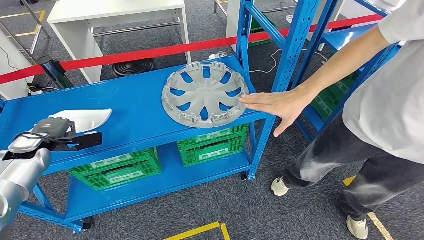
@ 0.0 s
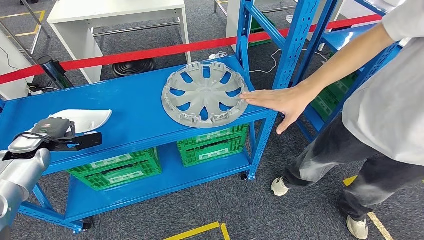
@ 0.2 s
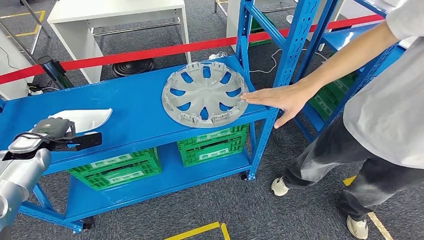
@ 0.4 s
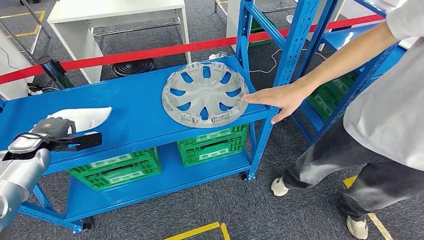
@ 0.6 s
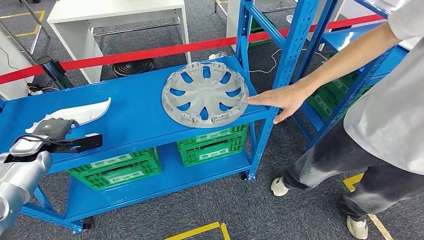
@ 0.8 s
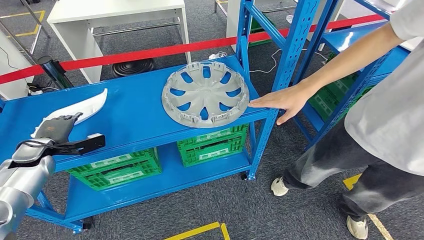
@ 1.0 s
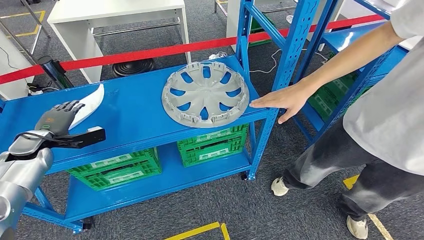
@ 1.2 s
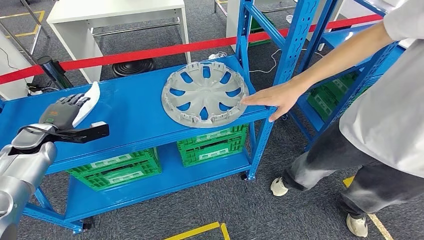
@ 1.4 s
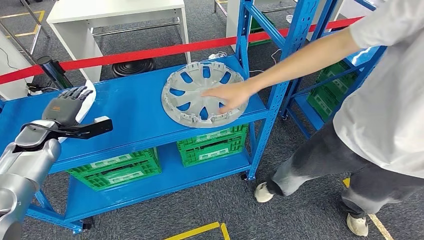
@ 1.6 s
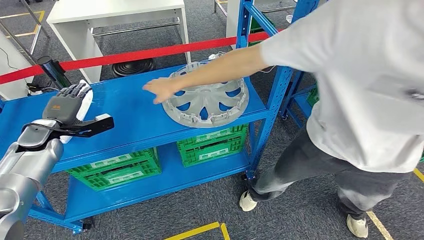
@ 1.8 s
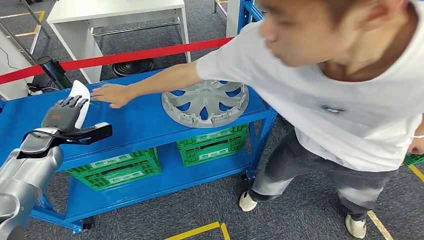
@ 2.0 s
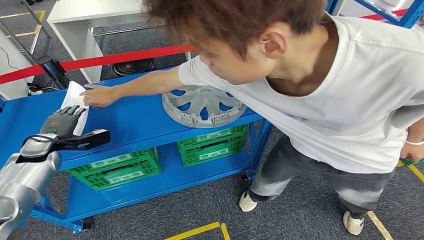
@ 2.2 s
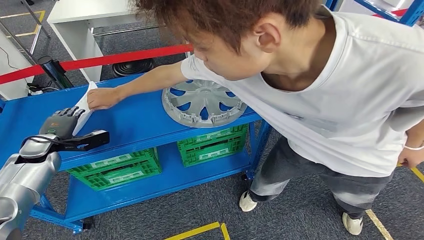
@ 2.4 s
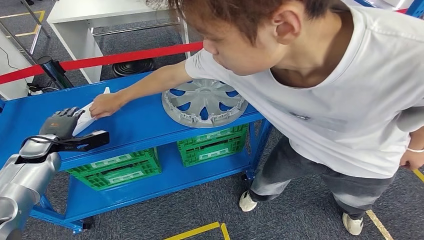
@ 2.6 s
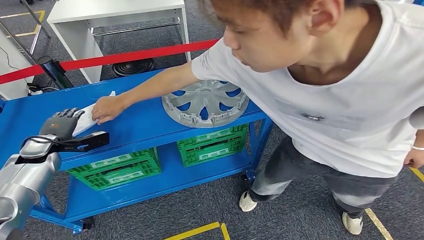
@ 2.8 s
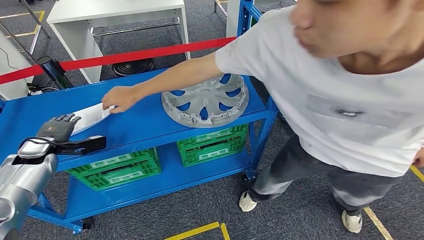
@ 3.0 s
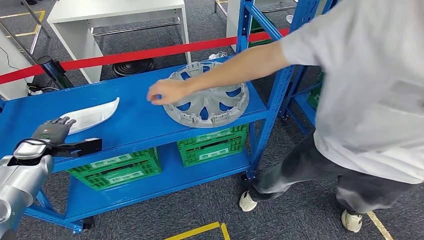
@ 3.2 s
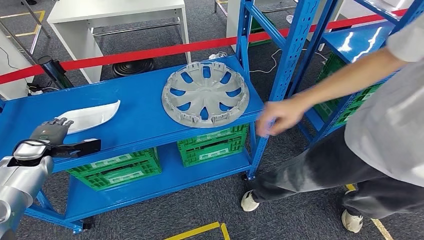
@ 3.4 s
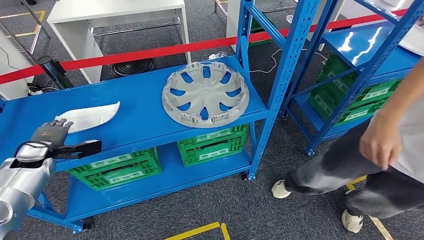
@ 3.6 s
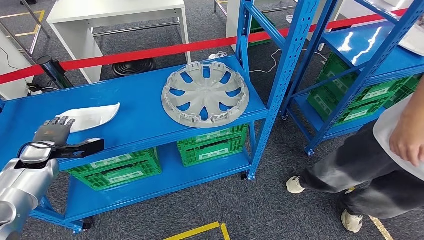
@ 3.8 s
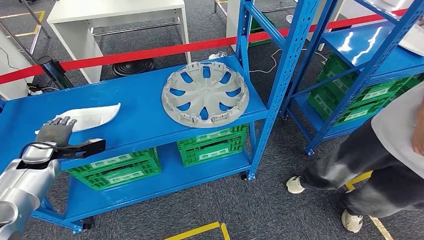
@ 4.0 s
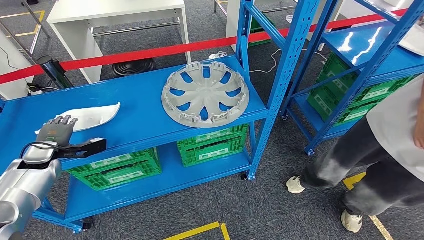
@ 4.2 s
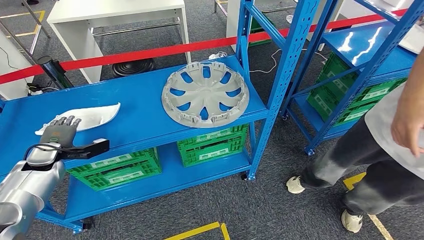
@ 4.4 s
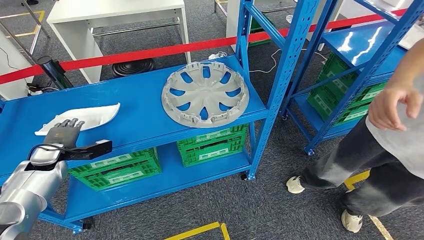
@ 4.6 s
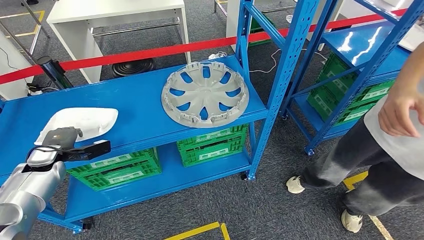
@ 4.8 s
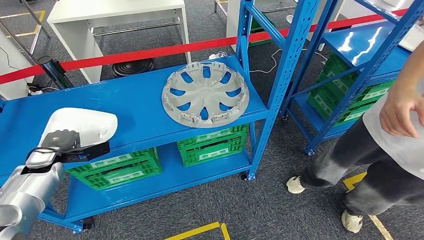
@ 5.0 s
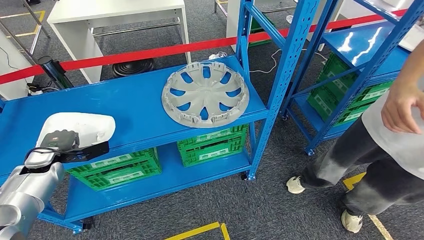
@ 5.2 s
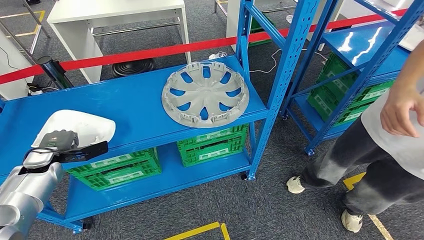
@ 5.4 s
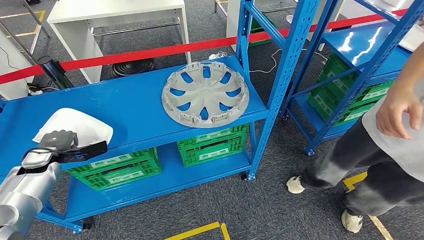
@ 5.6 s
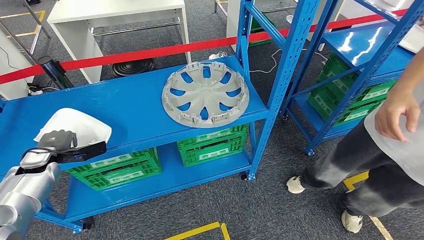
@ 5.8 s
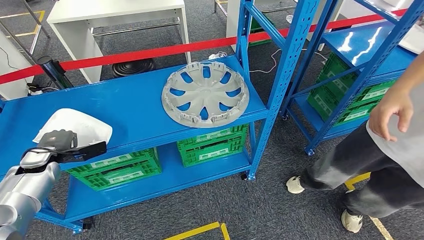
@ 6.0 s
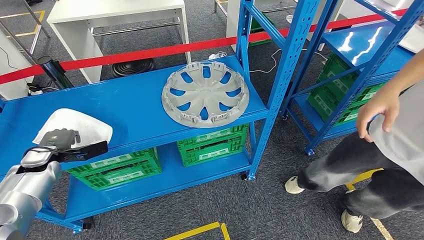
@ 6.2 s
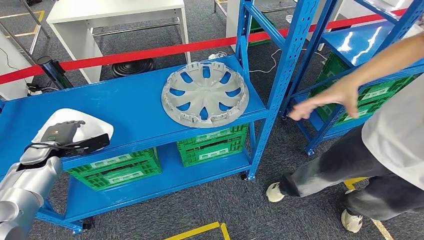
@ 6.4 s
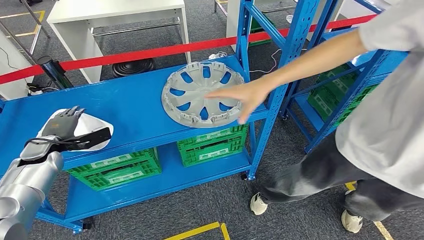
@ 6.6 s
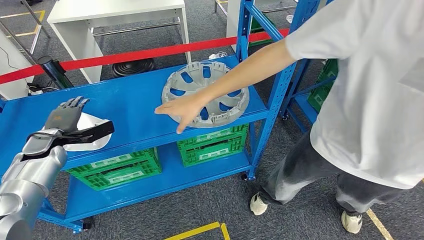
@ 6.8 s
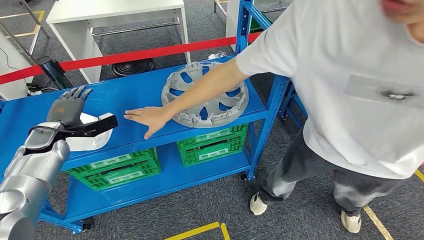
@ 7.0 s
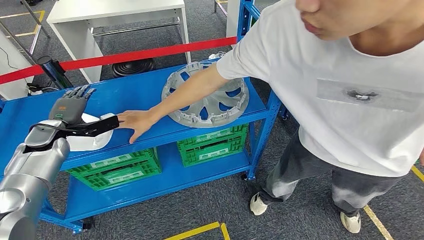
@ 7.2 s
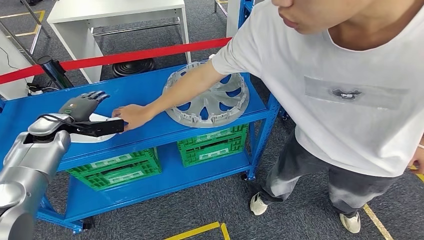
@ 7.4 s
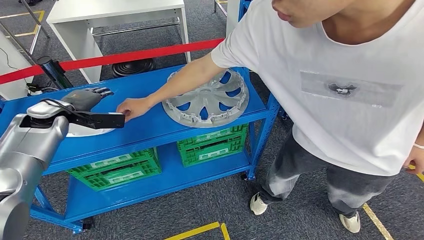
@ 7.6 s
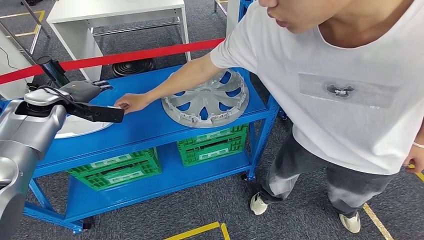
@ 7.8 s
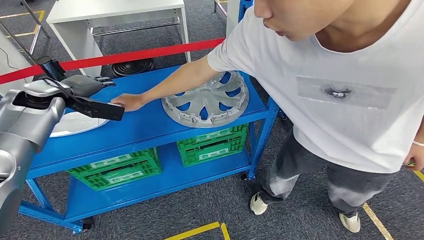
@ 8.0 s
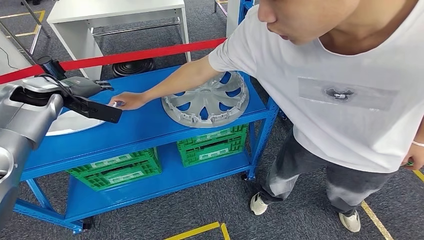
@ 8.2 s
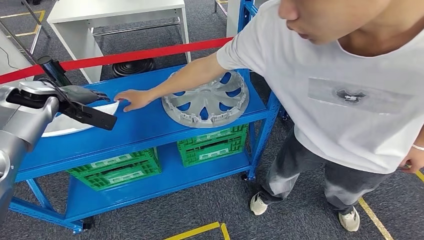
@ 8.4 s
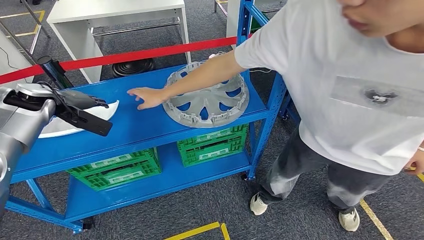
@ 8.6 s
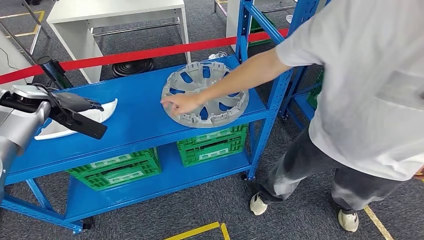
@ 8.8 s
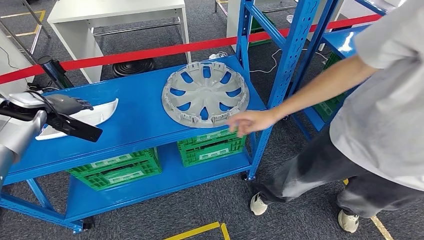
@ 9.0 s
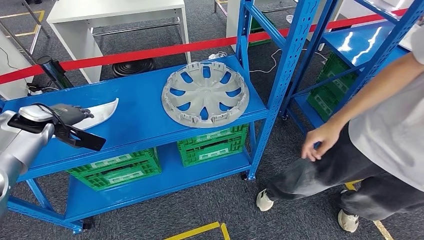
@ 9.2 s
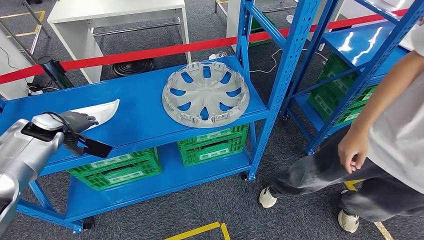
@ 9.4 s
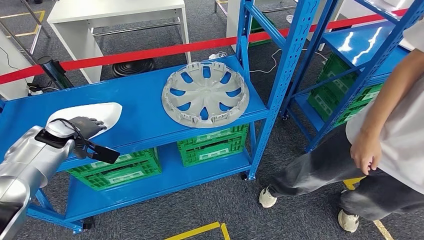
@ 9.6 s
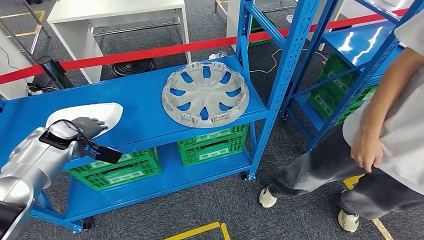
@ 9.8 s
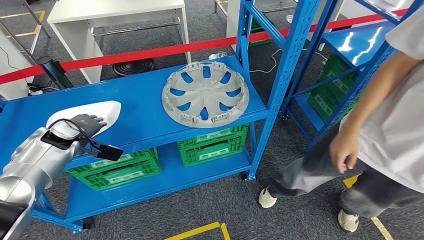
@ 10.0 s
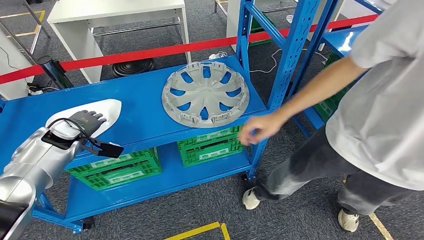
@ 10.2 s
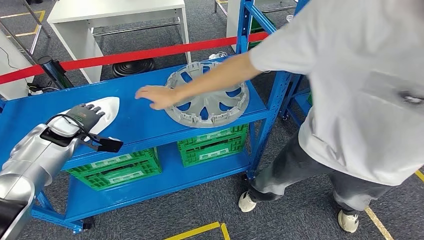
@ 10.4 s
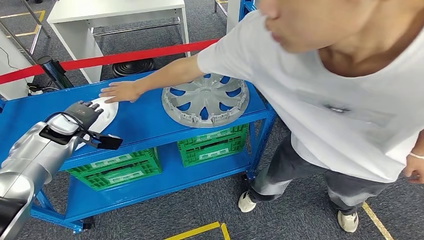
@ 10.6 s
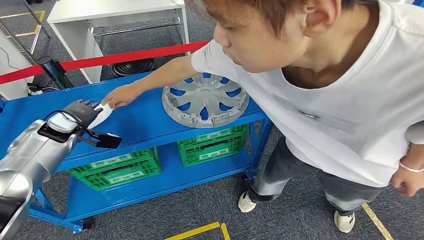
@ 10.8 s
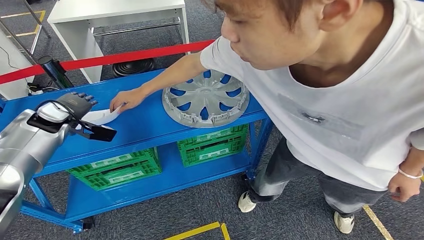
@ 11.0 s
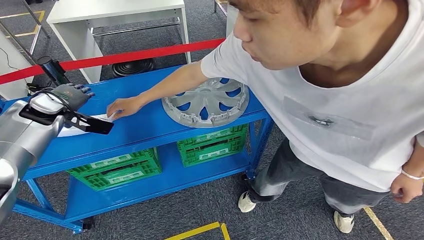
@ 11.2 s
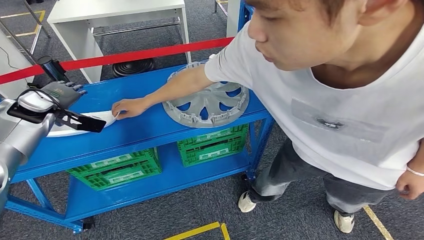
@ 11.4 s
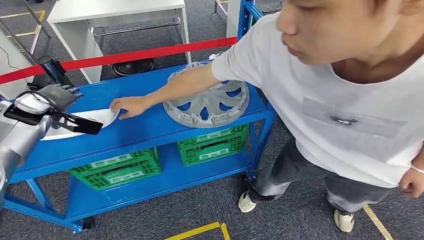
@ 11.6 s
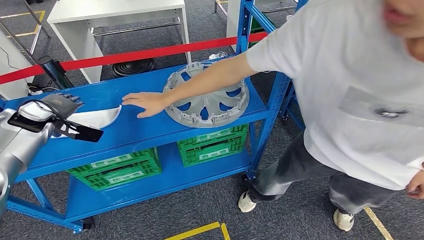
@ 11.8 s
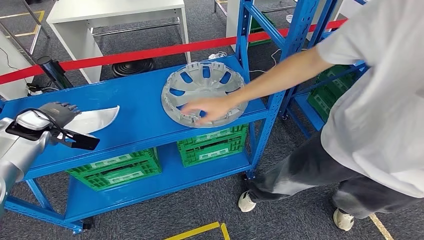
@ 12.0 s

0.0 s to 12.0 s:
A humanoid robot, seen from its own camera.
4.4 to 6.0 s: The hands make only small movements.

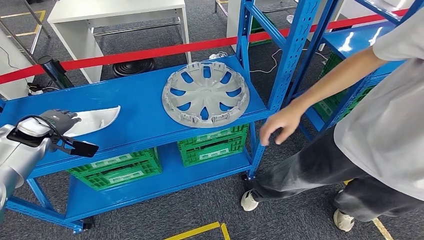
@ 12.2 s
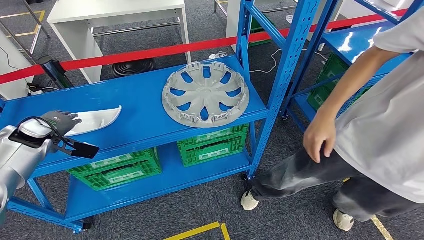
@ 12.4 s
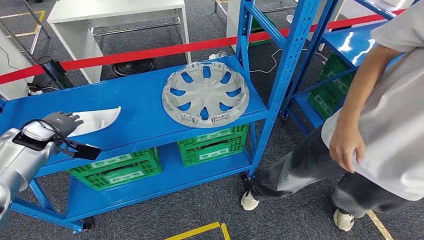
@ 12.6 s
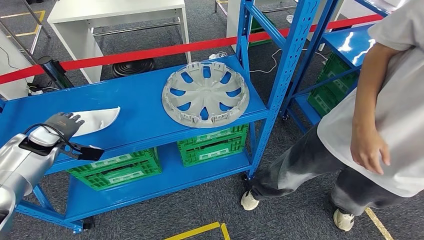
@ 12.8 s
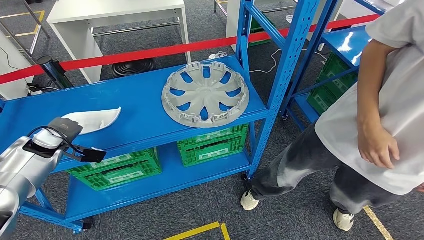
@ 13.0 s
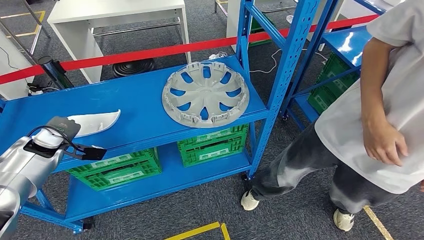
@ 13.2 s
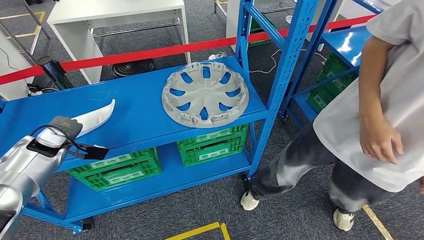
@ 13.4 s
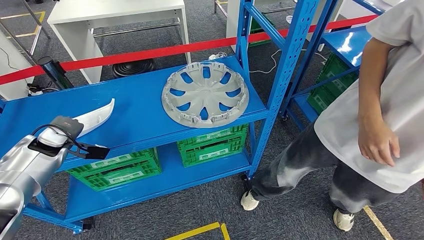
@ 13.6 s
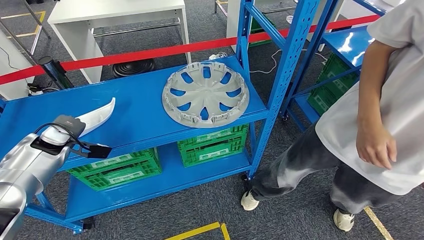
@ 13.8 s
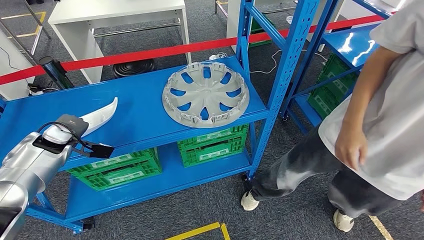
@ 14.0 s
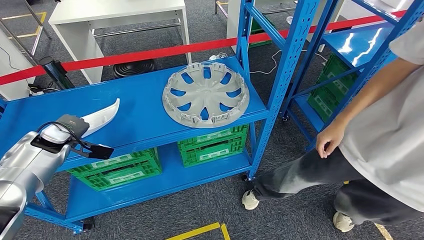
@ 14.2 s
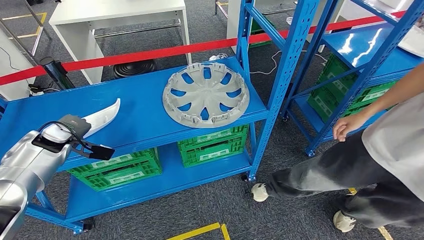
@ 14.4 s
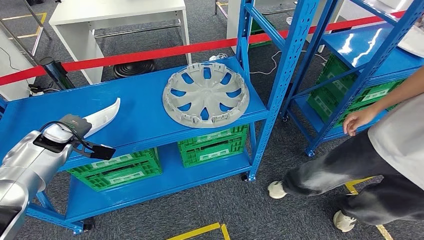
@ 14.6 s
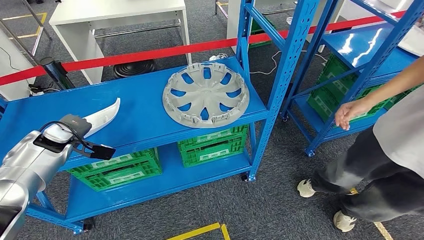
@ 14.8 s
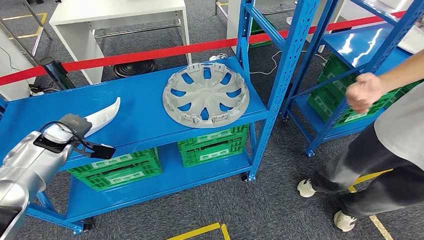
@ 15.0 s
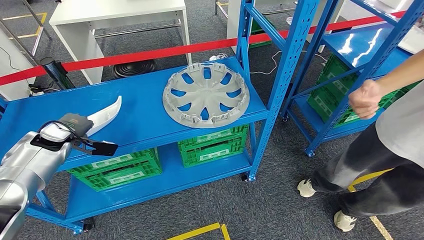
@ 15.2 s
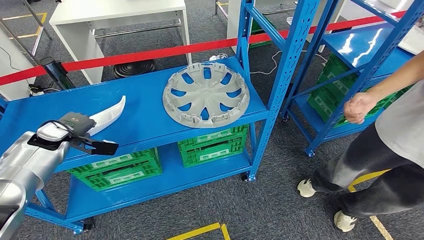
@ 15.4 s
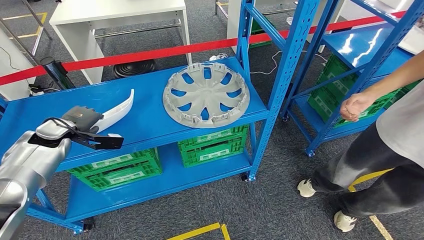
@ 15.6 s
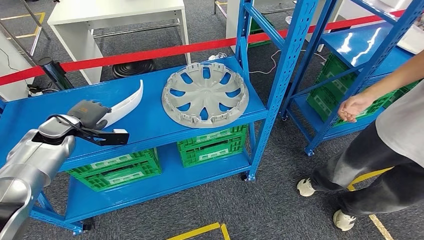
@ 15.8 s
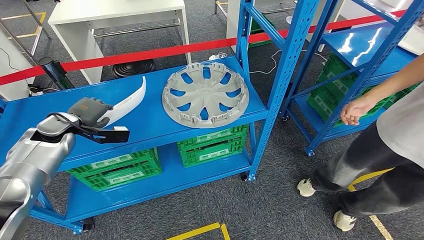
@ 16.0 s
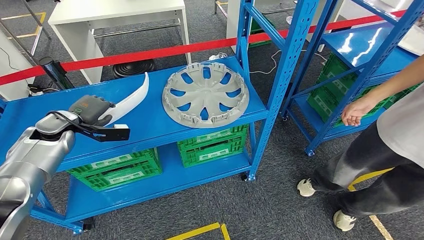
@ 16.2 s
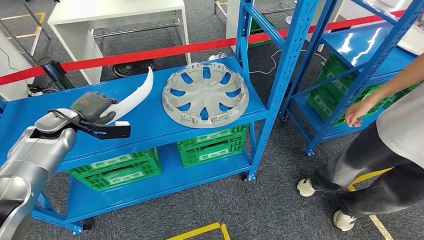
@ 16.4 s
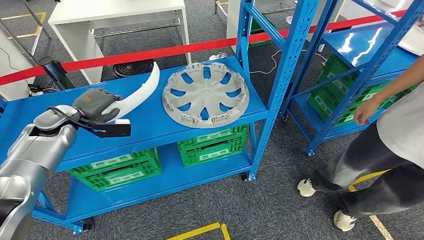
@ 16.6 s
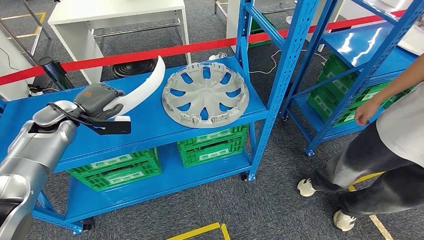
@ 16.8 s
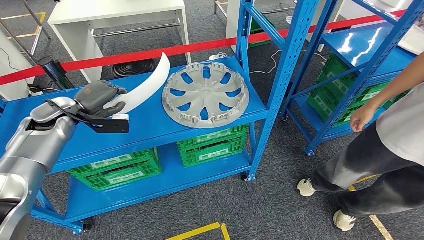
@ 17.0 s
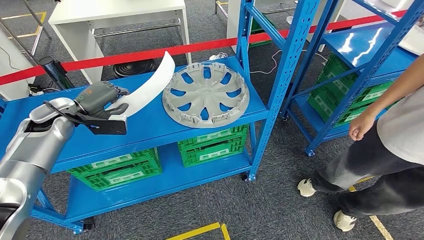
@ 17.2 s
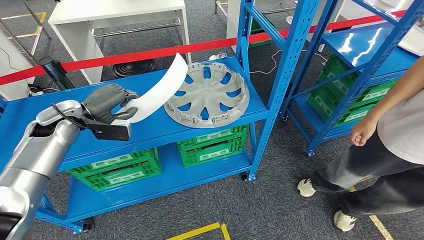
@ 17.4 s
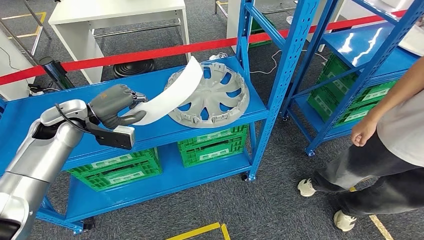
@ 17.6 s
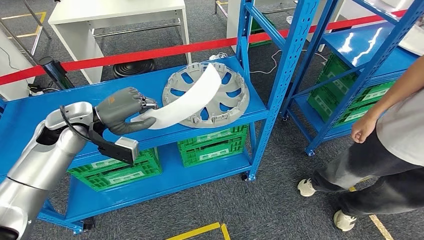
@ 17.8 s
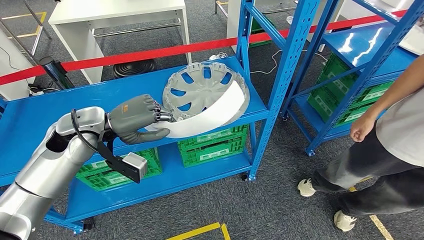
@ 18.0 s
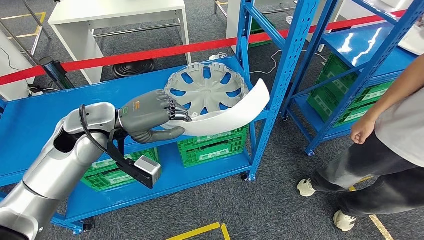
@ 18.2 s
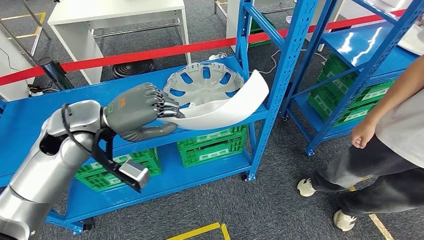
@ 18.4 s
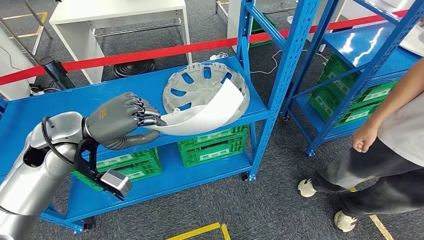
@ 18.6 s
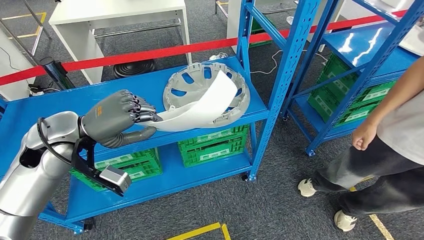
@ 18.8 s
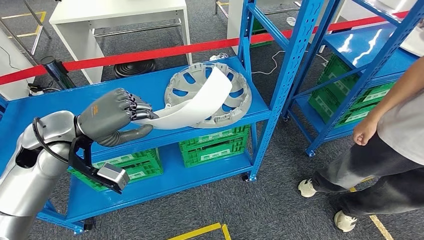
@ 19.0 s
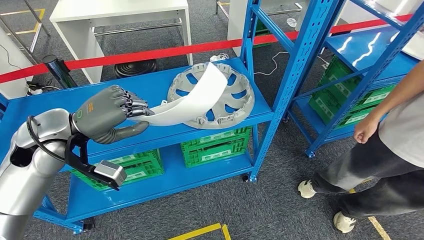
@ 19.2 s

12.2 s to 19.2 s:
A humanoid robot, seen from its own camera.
Step, 12.2 to 17.0 s: Pick up the small parts from the shelf.
16.4 to 17.8 s: The left hand shifts about 10 cm to the right and upward.
